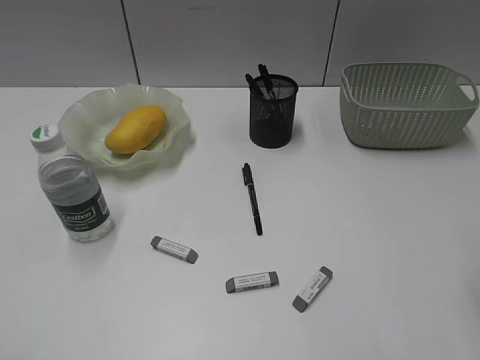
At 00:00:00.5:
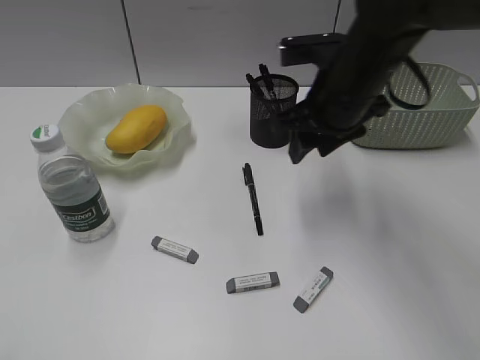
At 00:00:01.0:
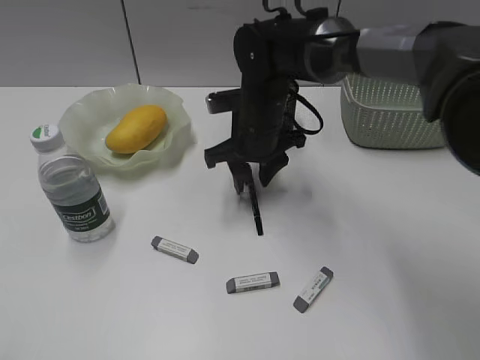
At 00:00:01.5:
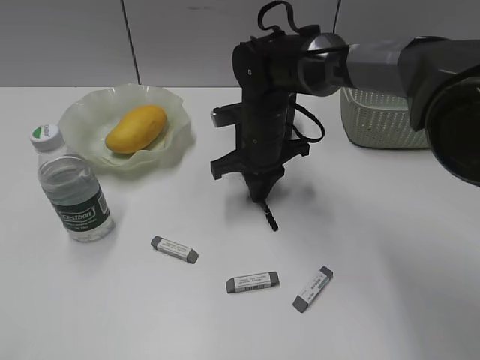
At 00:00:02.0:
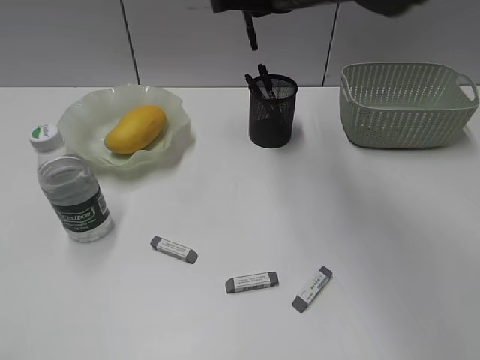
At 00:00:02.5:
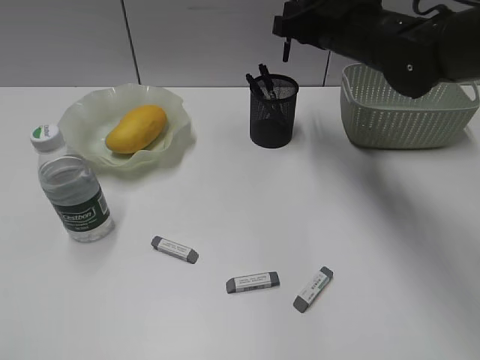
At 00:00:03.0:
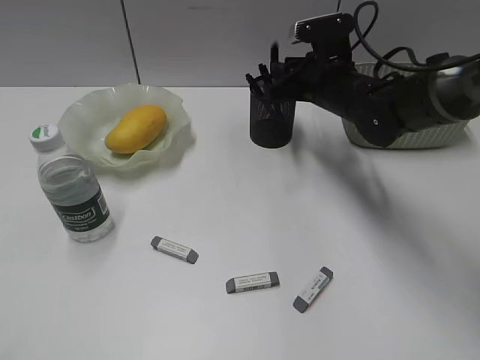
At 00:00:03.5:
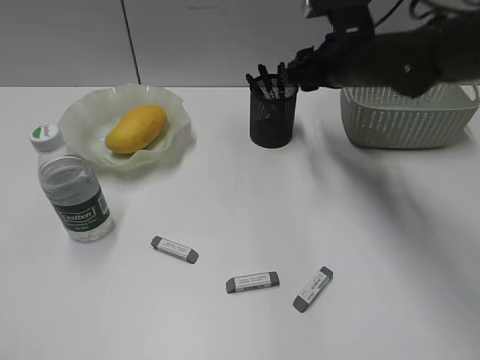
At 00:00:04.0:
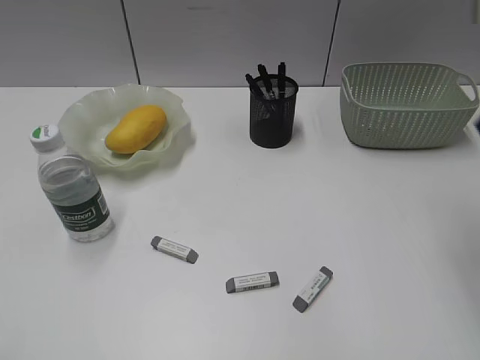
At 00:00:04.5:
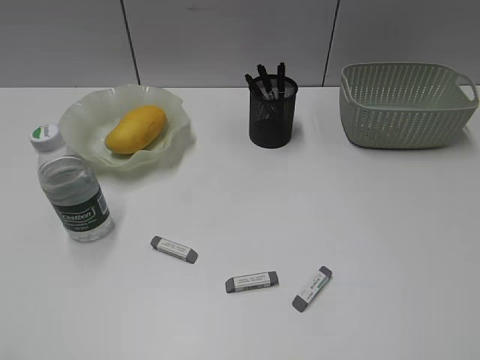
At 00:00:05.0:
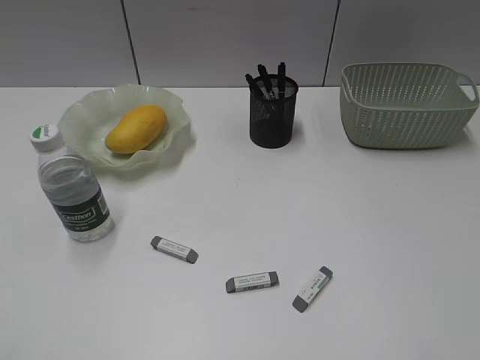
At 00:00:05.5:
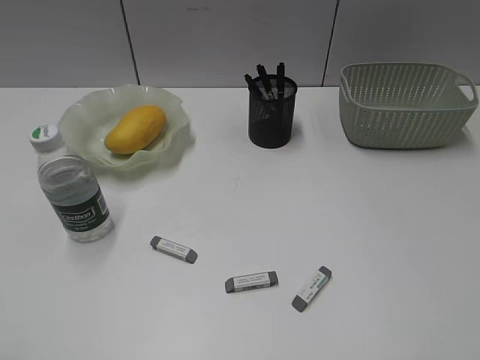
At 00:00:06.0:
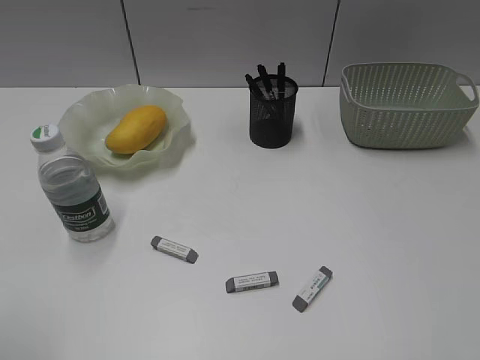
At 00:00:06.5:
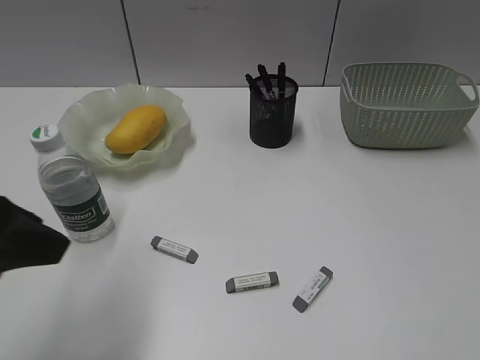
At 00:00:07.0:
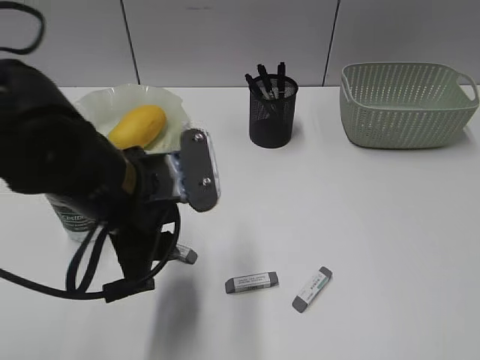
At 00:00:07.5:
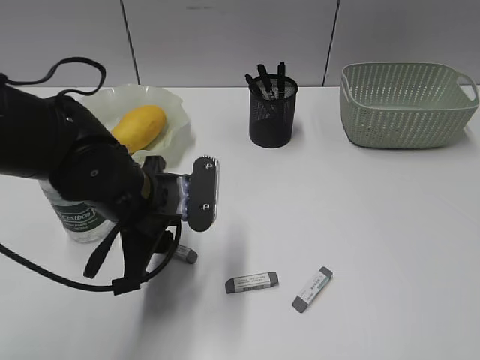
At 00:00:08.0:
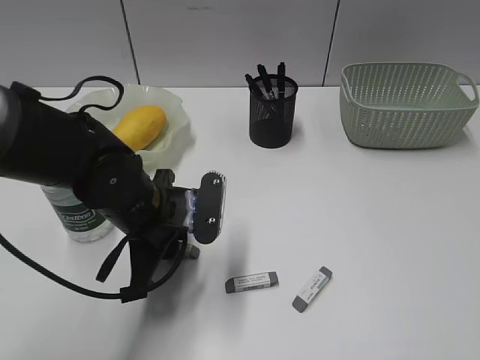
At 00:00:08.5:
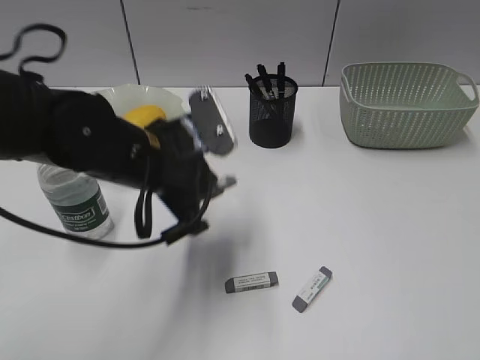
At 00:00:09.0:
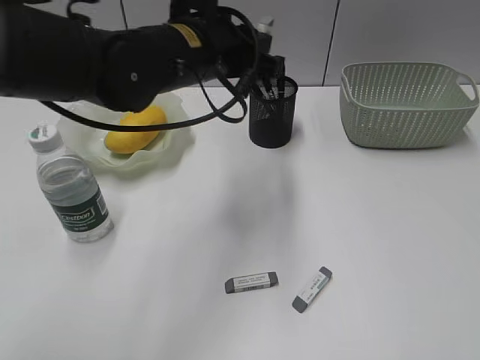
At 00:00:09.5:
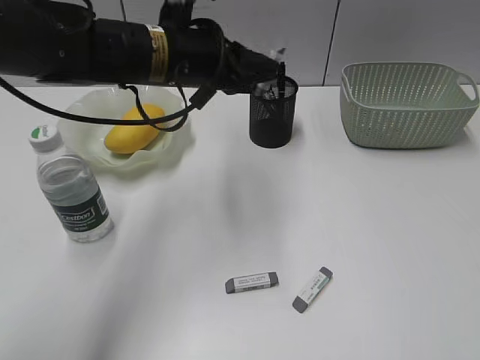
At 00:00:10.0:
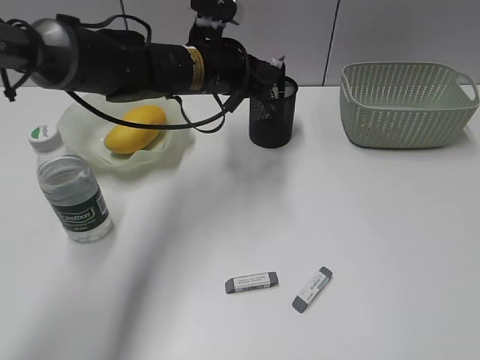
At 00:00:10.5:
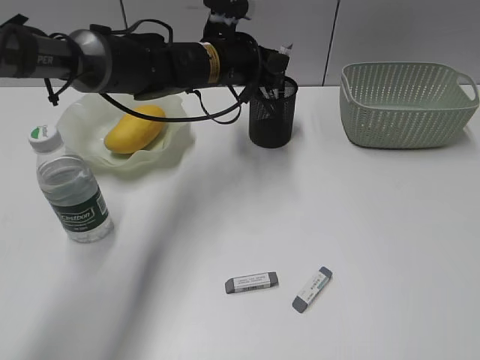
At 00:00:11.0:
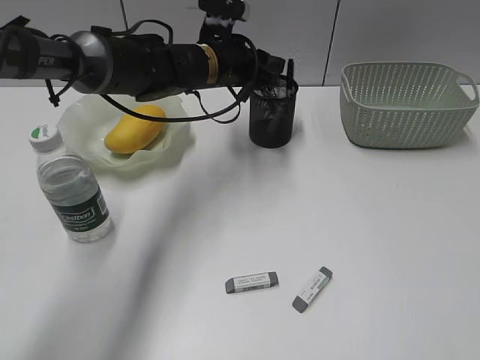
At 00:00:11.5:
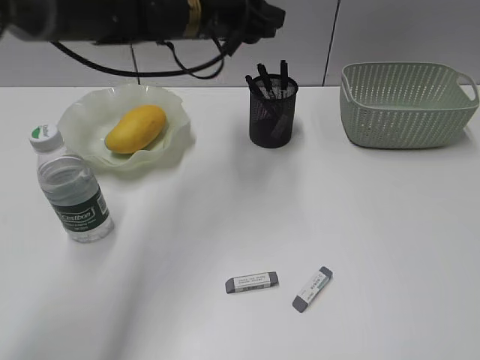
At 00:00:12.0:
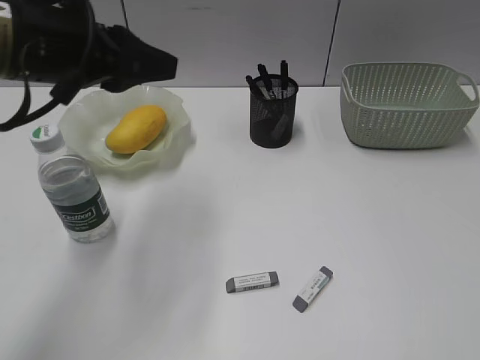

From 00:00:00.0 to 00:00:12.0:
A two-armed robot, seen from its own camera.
Step, from 00:00:04.0 to 00:00:08.0: Grasp the eraser with left gripper.
Step, from 00:00:08.5 to 00:00:11.0: Place the eraser in pen holder with left gripper.
From 00:00:00.0 to 00:00:02.0: The right gripper is displaced forward and to the left by about 30 cm, and closes.
From 00:00:02.0 to 00:00:04.0: The right gripper goes roughly 20 cm to the right and backward, and opens up.
From 00:00:06.0 to 00:00:08.0: The left gripper travels forward, to the right and downward by approximately 35 cm.
From 00:00:08.0 to 00:00:10.0: The left gripper travels forward and upward by some 15 cm.
From 00:00:10.0 to 00:00:12.0: The left gripper goes approximately 20 cm backward, to the left and upward.

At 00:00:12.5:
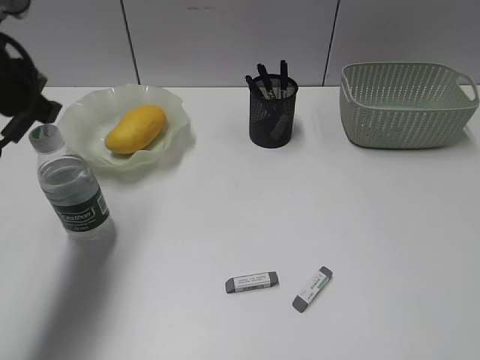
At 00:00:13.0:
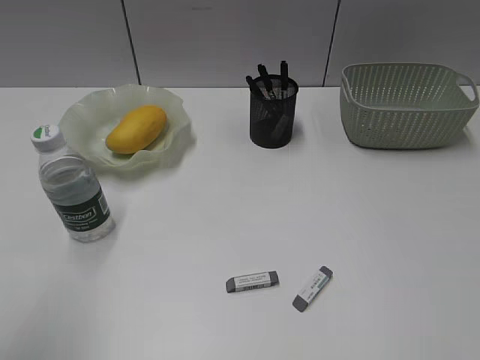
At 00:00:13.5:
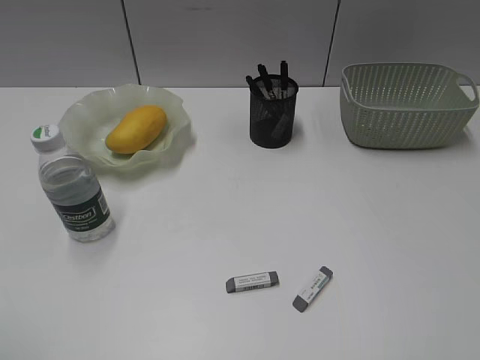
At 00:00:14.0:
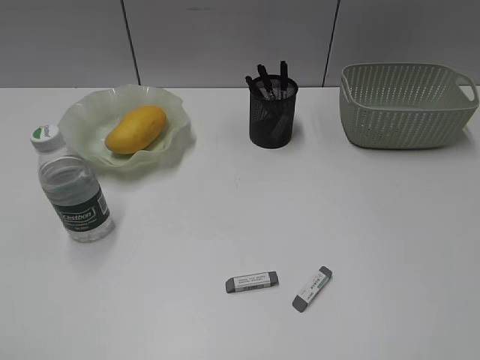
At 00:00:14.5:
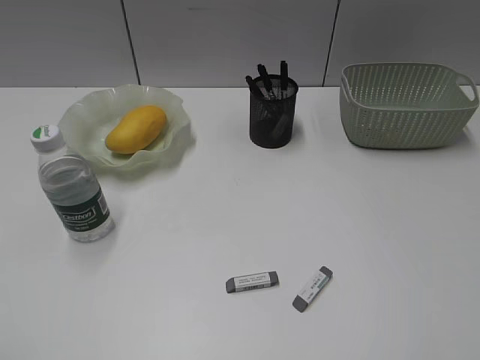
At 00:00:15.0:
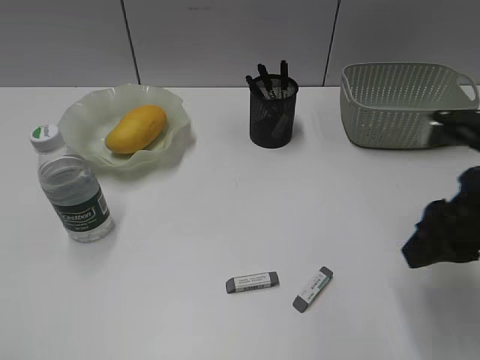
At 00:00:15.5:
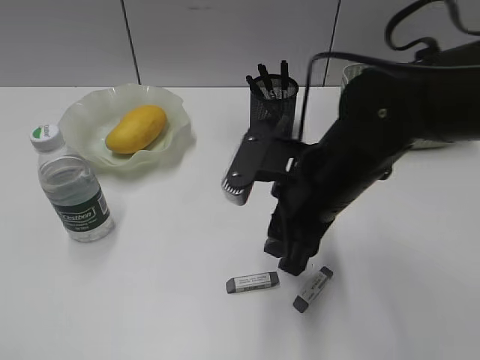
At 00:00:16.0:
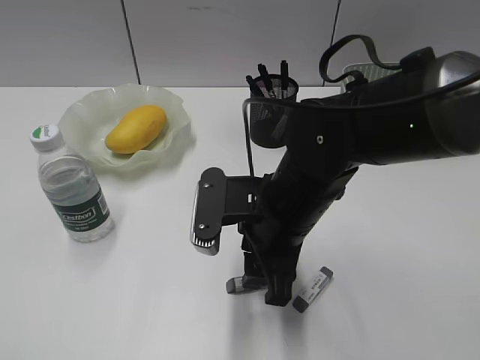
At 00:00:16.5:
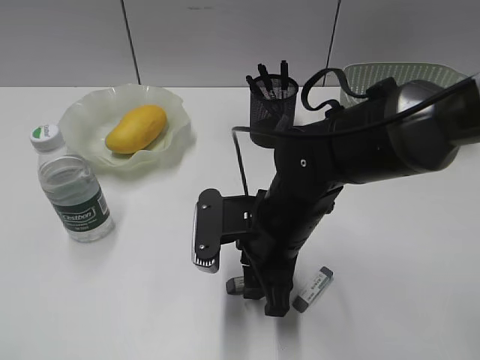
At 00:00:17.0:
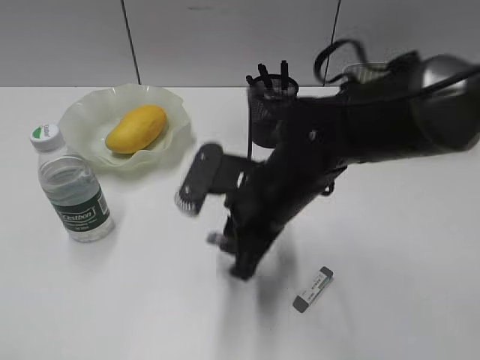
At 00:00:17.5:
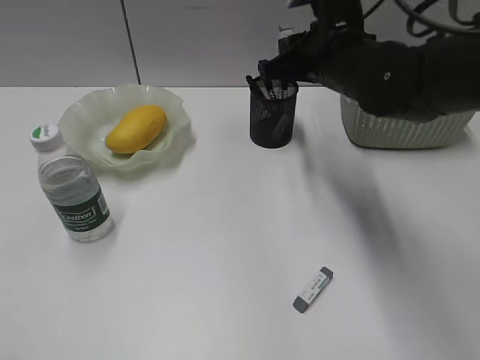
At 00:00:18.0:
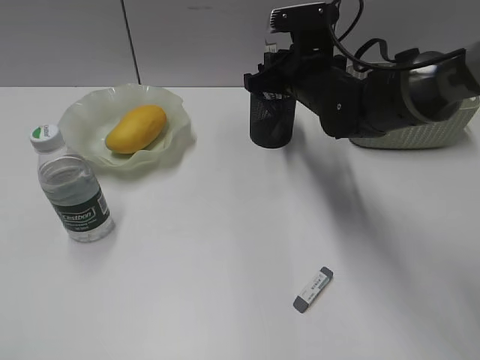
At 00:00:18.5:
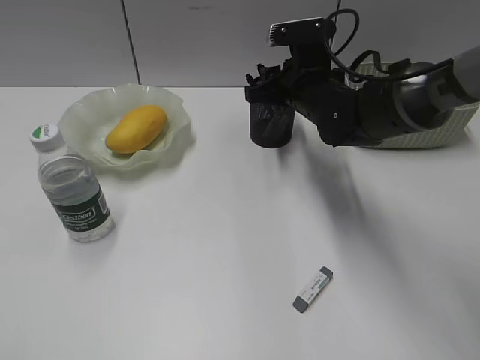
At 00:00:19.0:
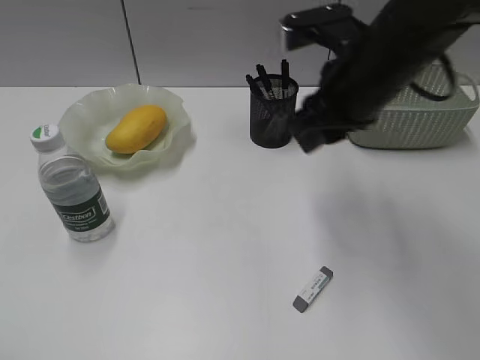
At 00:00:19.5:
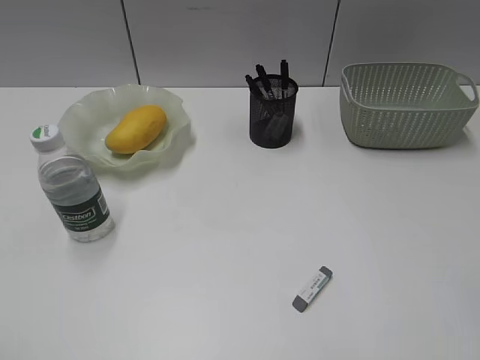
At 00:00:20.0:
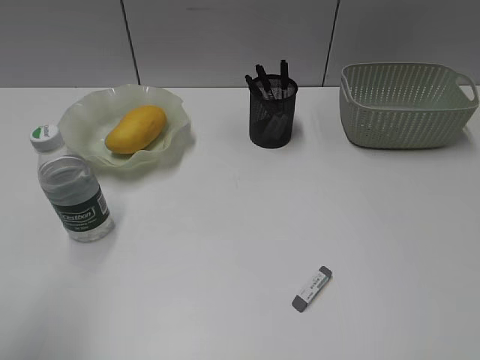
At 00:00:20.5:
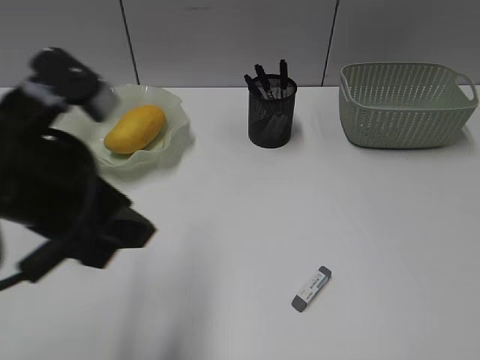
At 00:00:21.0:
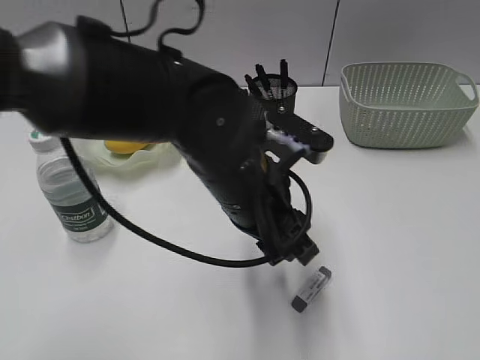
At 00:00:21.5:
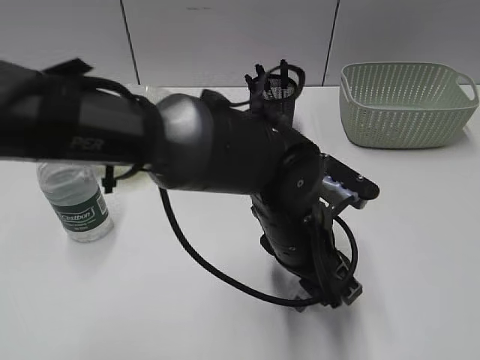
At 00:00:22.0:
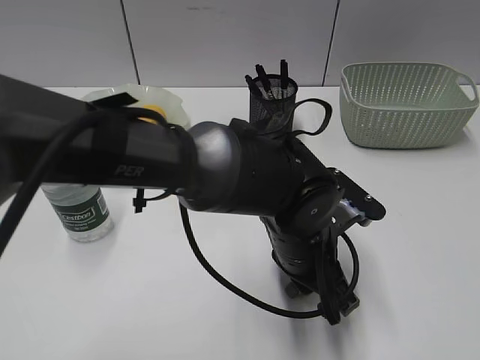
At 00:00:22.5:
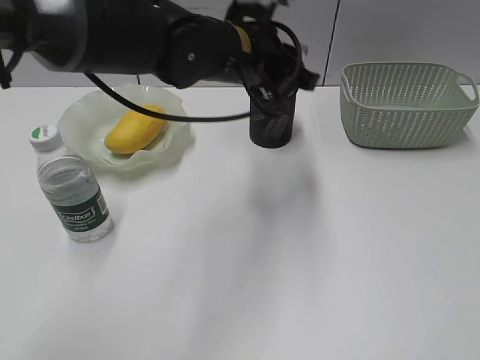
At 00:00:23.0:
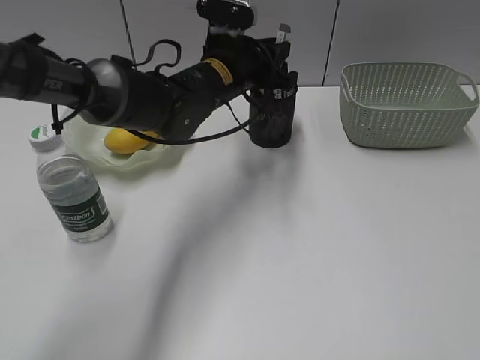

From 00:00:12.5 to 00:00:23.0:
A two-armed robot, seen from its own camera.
Step, from 00:00:12.5 to 00:00:17.0: Grasp the eraser with right gripper.
Step, from 00:00:19.5 to 00:00:22.0: Grasp the eraser with left gripper.
From 00:00:12.5 to 00:00:14.5: The left gripper heads backward, covering about 25 cm.
From 00:00:14.5 to 00:00:16.5: The right gripper shifts some 40 cm to the left, forward and downward.
From 00:00:16.5 to 00:00:19.0: The right gripper travels upward, to the right and forward by approximately 15 cm.
From 00:00:19.0 to 00:00:21.0: The left gripper travels to the right and forward by about 40 cm, and opens. The right gripper is displaced backward and to the right by approximately 35 cm, and opens.
From 00:00:21.0 to 00:00:23.0: The left gripper moves forward, about 20 cm, and closes its fingers.

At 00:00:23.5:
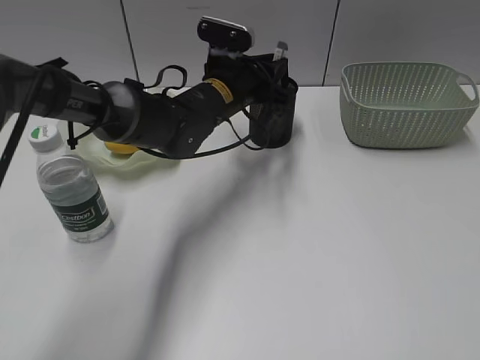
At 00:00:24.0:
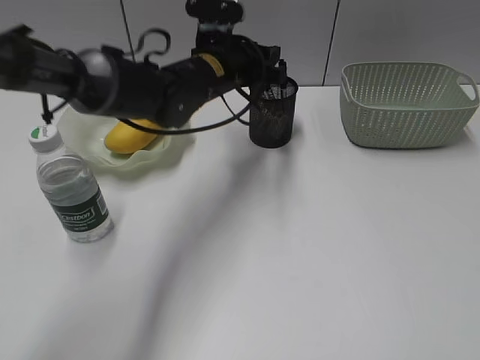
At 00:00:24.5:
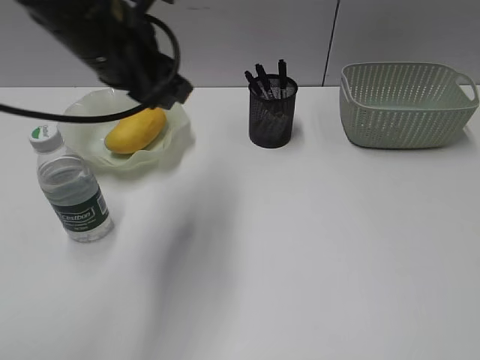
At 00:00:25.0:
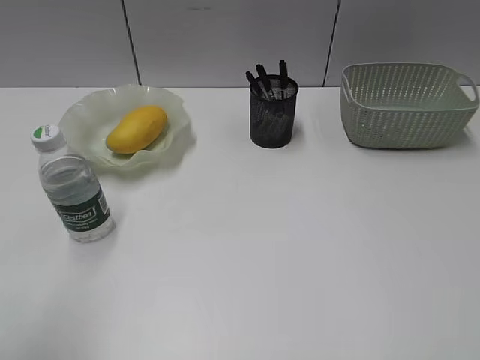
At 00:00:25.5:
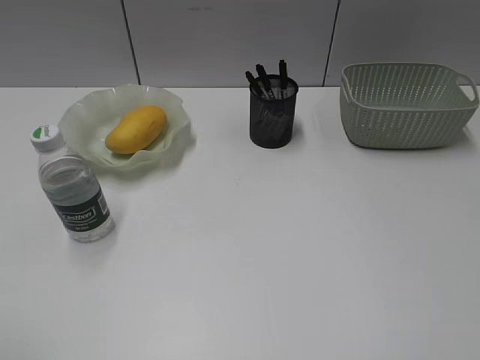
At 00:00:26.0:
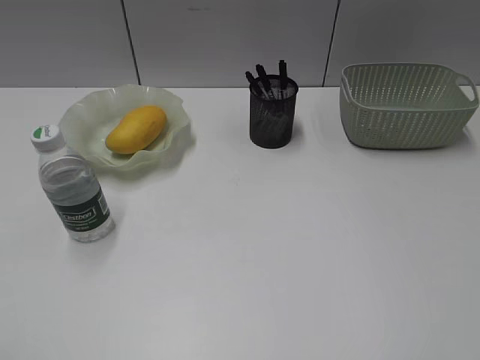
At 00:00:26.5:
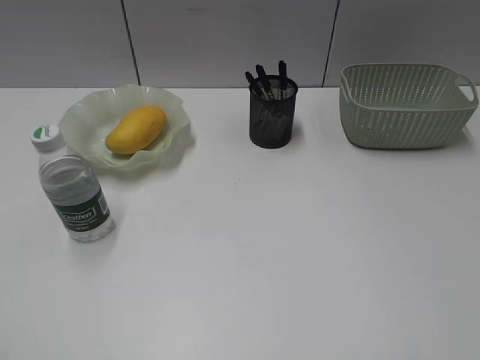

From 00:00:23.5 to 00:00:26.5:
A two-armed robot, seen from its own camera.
From 00:00:23.5 to 00:00:25.0: The left gripper travels backward, to the left and upward by some 40 cm.
